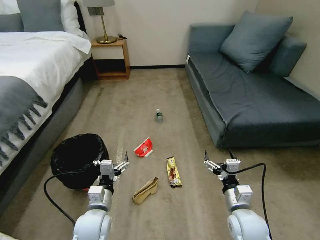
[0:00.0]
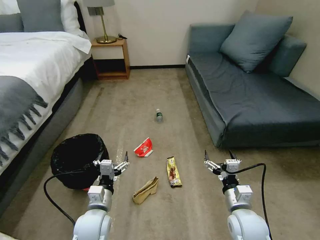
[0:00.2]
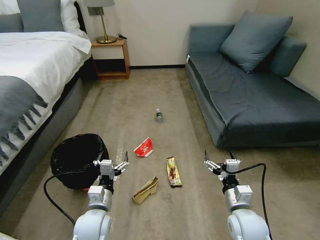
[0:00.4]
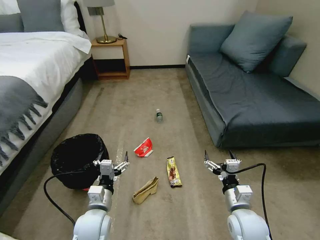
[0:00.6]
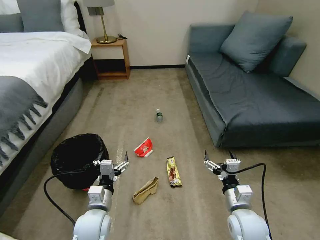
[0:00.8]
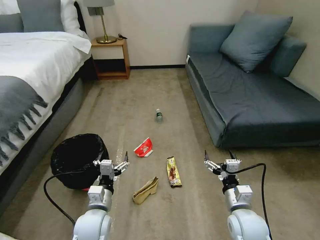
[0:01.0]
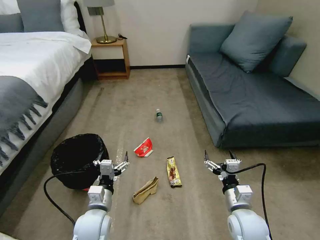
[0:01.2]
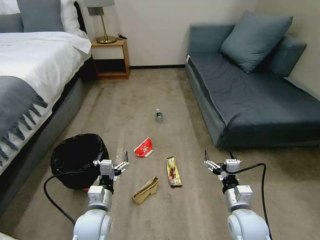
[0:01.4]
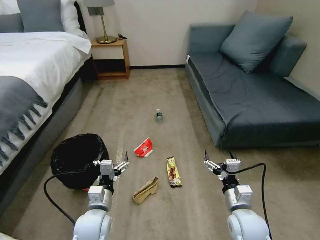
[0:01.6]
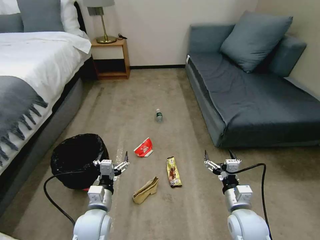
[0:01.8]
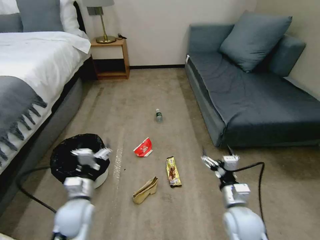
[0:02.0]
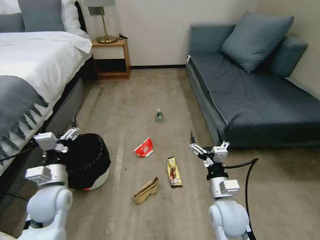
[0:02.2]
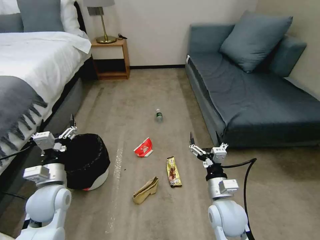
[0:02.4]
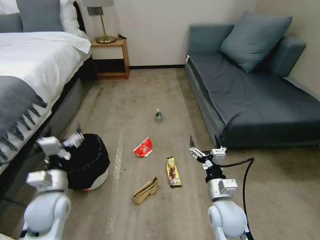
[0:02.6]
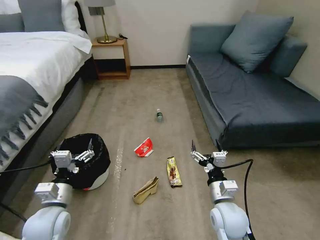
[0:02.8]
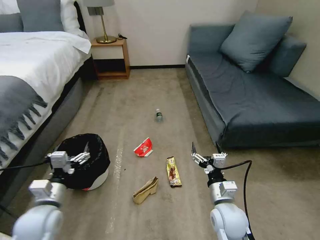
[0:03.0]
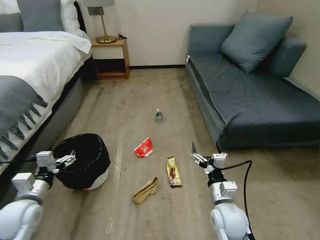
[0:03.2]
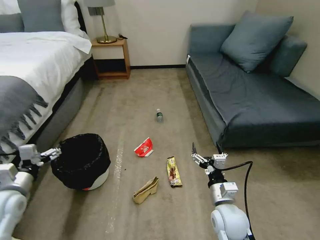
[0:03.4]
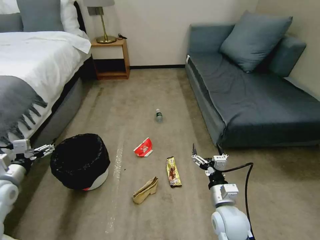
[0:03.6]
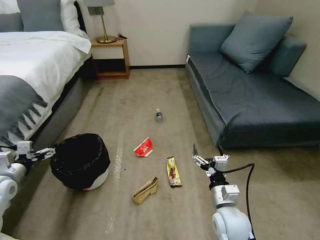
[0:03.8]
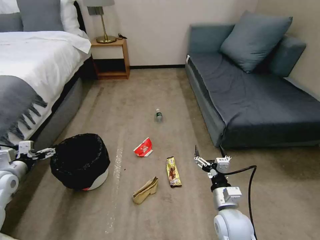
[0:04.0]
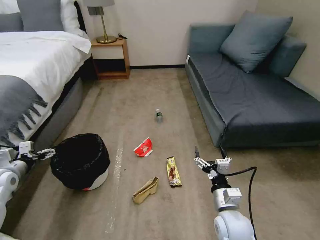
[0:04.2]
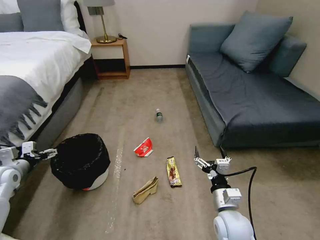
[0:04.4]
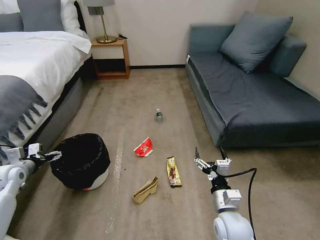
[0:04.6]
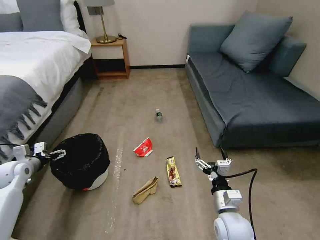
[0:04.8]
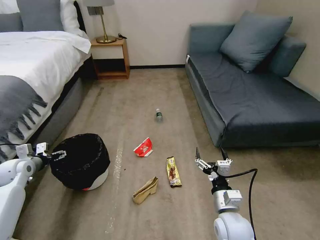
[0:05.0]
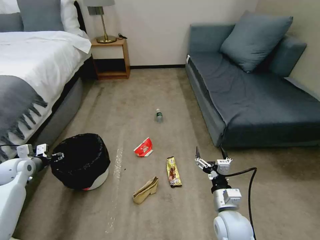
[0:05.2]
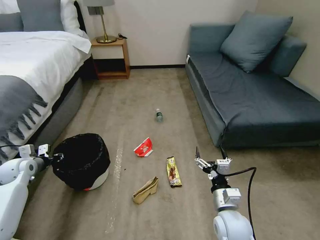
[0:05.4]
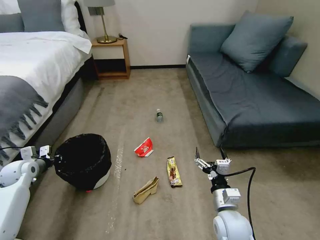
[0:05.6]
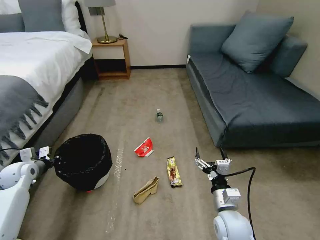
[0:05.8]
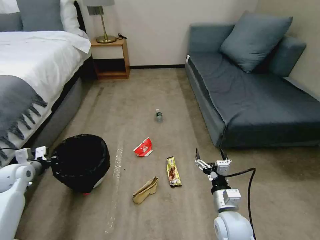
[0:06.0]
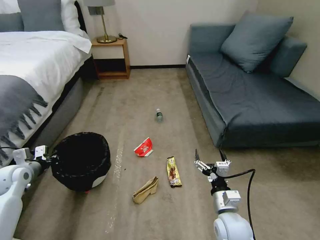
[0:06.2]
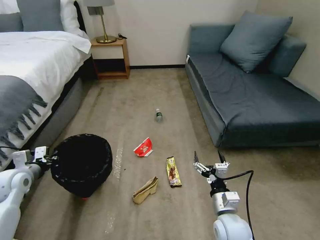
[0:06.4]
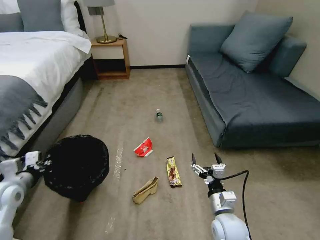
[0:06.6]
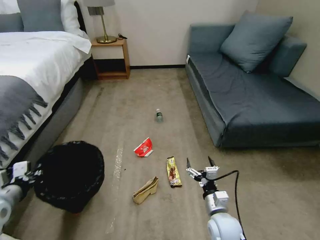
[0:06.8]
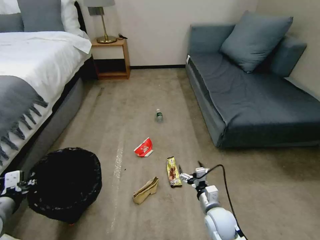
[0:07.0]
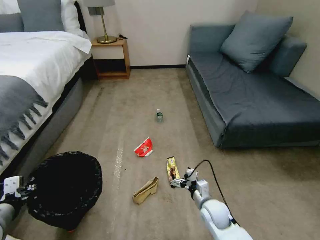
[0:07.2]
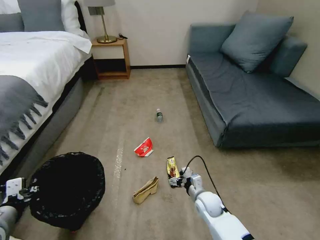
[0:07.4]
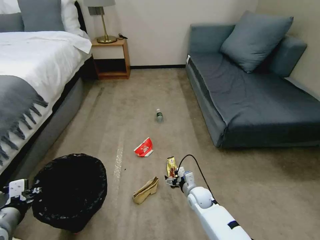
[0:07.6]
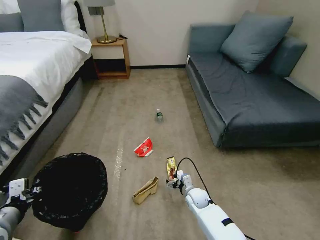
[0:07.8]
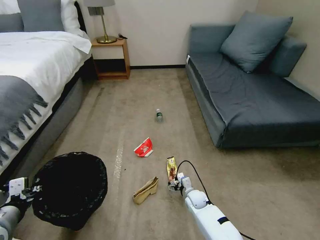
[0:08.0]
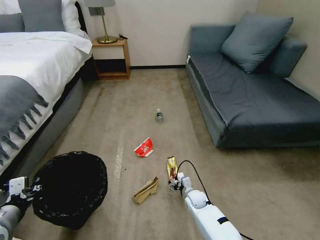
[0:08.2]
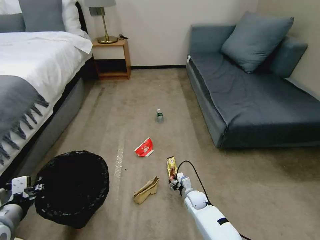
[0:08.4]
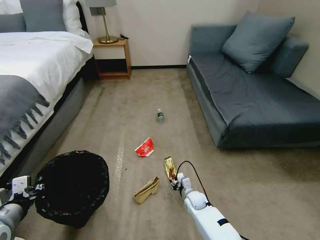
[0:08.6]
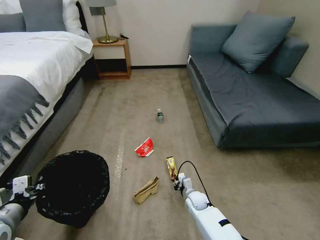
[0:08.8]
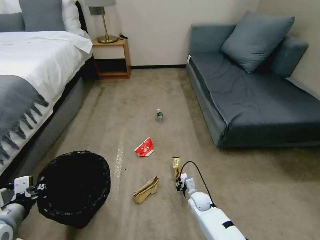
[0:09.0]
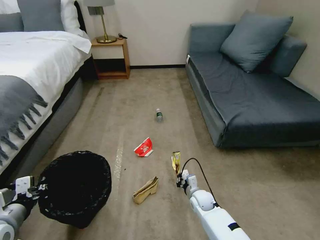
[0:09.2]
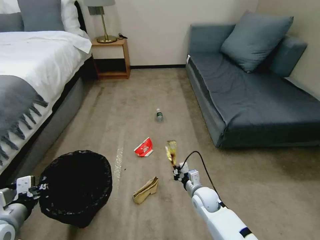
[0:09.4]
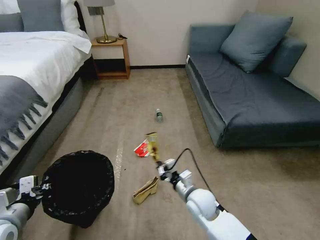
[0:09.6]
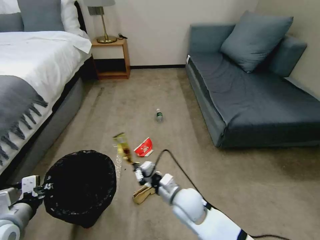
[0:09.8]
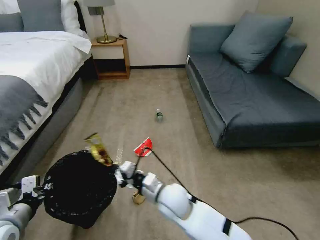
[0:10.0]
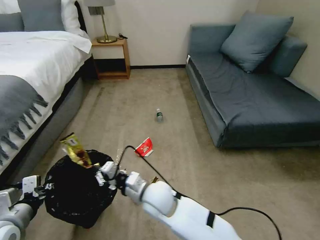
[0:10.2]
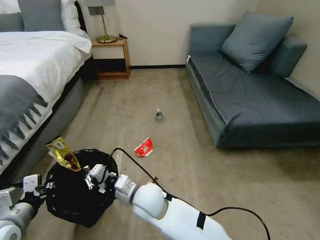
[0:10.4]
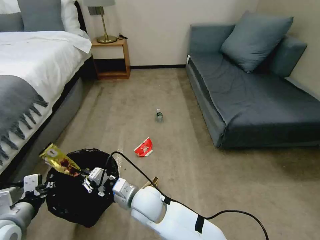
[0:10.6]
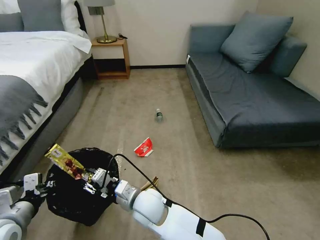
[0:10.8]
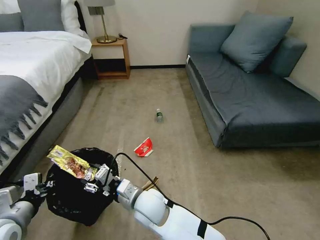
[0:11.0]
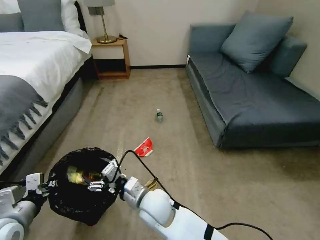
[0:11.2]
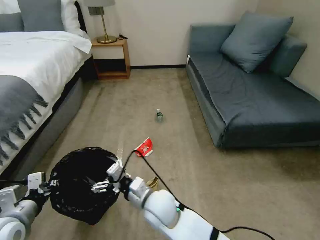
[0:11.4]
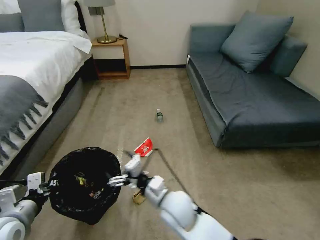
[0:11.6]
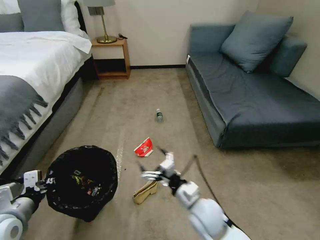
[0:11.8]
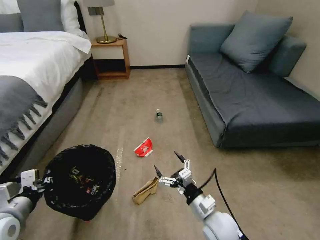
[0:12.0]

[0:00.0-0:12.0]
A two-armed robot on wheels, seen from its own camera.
Task of the whole recording: Pick up the trash bin, then pick up the garbage on the floor and place it into the trash bin.
0:01.6 to 0:03.0: The right gripper shifts by roughly 5 cm, while the left gripper moves to the left and upward, some 10 cm.
0:03.0 to 0:04.4: The left gripper heads to the left and forward, covering some 25 cm.
0:04.4 to 0:06.0: The left gripper closes up.
0:06.0 to 0:07.6: The right gripper shifts roughly 20 cm downward and forward; the left gripper goes some 20 cm backward and to the right.
0:07.6 to 0:09.0: The right gripper shifts roughly 5 cm downward, and closes.
0:09.0 to 0:10.4: The right gripper shifts roughly 30 cm upward and to the left.
0:10.4 to 0:12.0: The right gripper goes some 20 cm to the right, and opens its fingers.

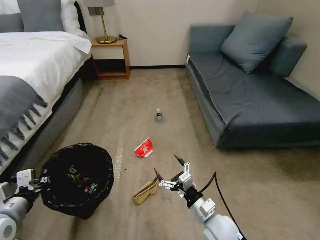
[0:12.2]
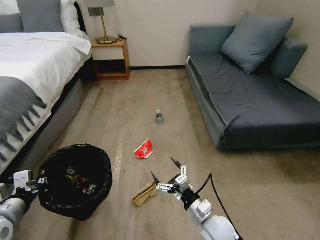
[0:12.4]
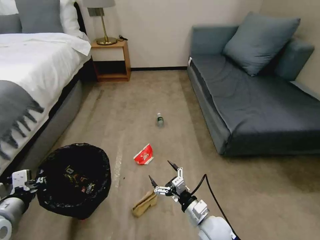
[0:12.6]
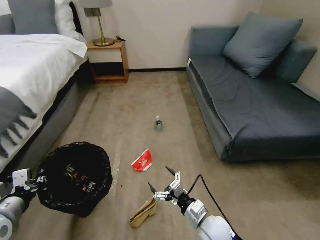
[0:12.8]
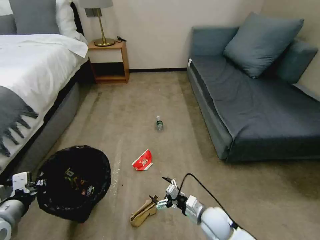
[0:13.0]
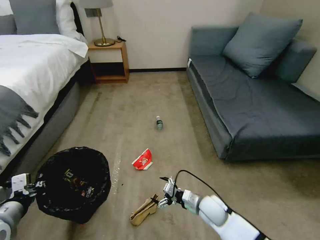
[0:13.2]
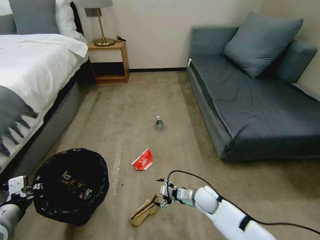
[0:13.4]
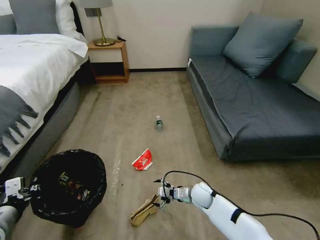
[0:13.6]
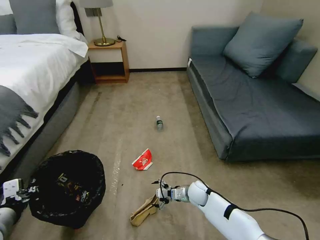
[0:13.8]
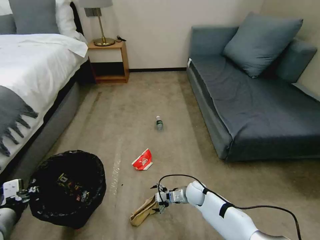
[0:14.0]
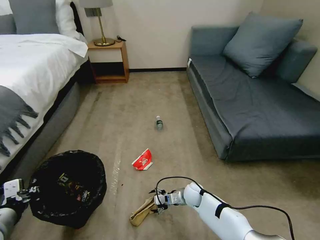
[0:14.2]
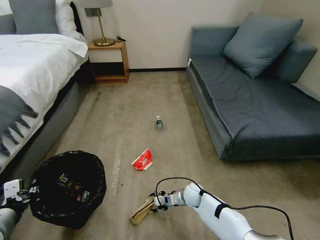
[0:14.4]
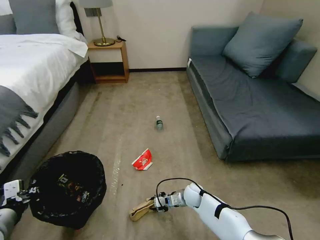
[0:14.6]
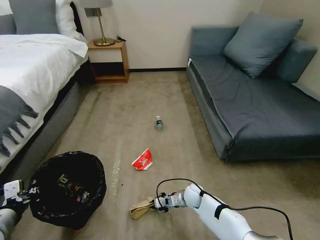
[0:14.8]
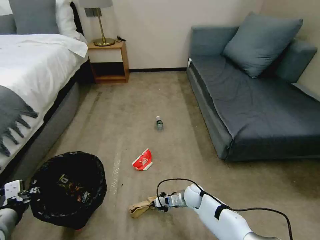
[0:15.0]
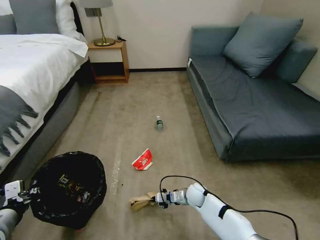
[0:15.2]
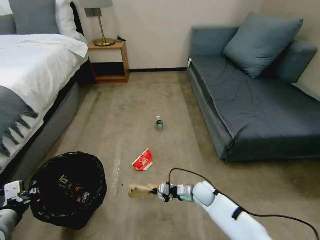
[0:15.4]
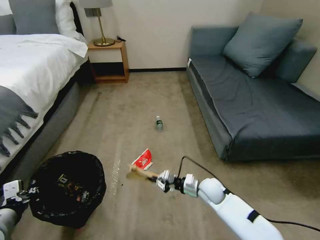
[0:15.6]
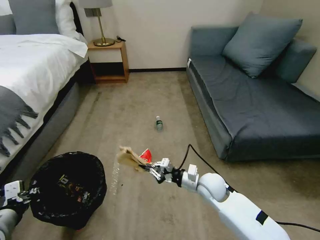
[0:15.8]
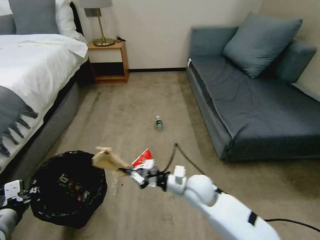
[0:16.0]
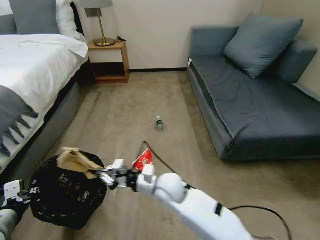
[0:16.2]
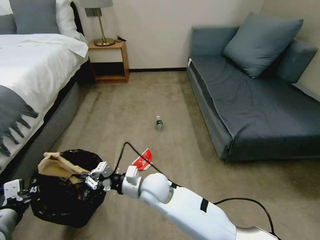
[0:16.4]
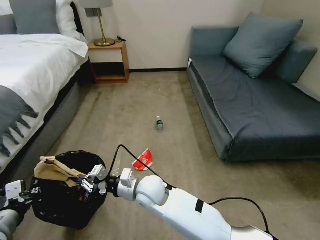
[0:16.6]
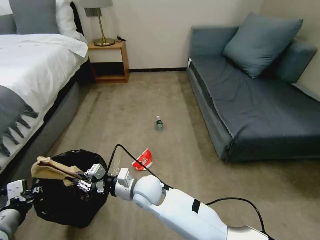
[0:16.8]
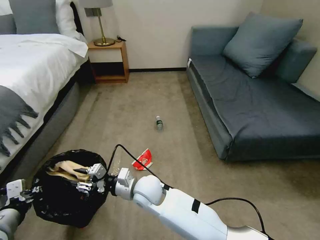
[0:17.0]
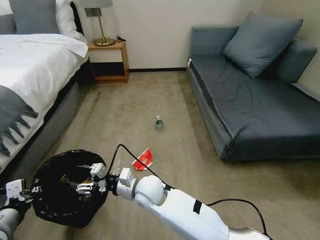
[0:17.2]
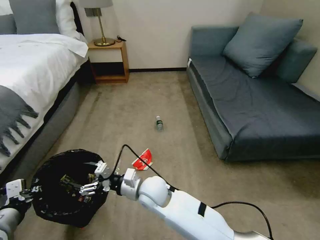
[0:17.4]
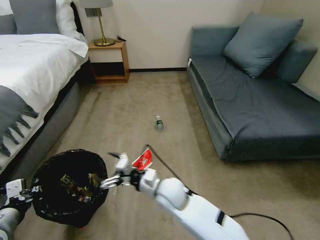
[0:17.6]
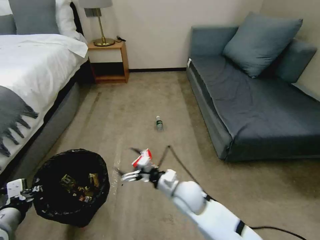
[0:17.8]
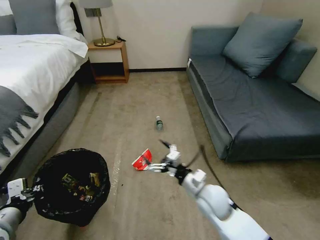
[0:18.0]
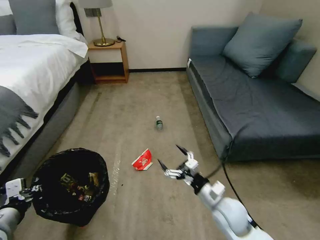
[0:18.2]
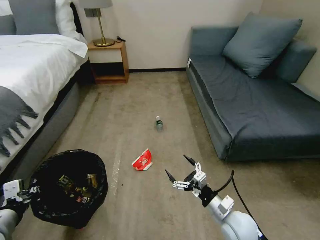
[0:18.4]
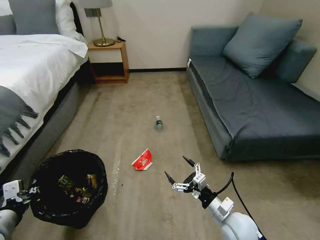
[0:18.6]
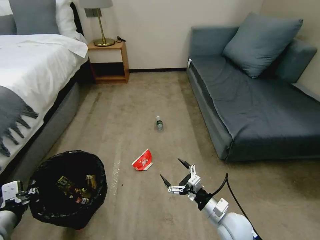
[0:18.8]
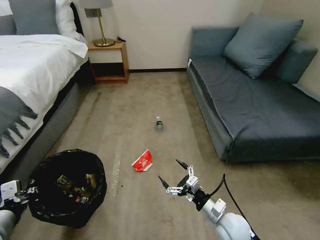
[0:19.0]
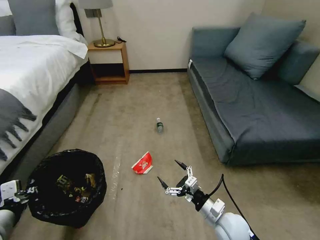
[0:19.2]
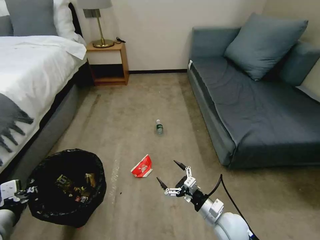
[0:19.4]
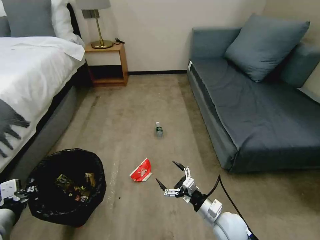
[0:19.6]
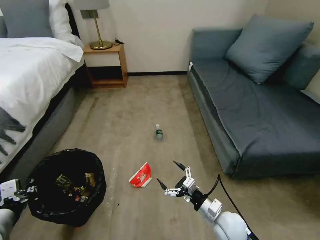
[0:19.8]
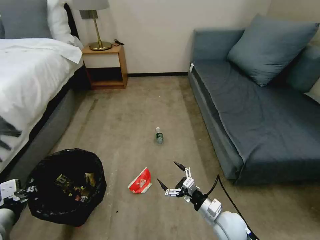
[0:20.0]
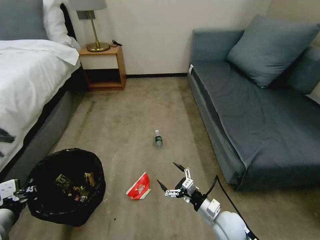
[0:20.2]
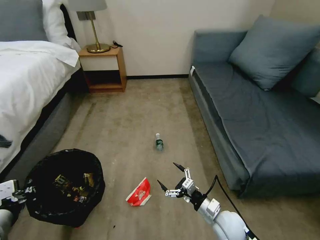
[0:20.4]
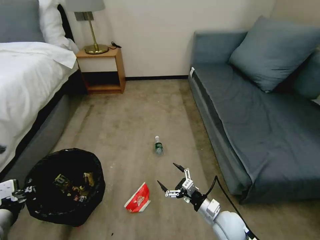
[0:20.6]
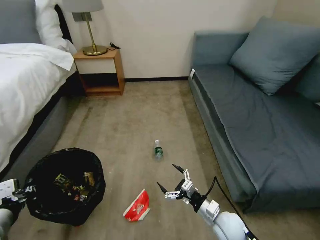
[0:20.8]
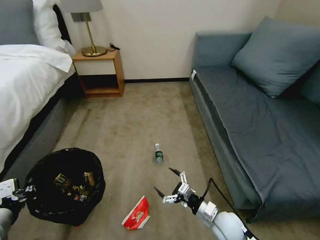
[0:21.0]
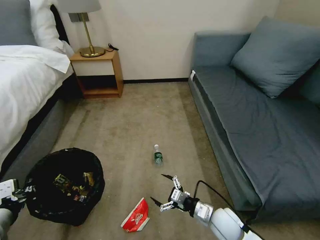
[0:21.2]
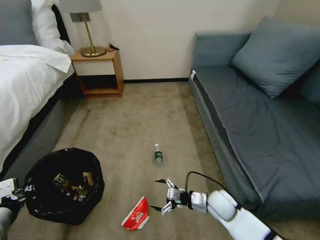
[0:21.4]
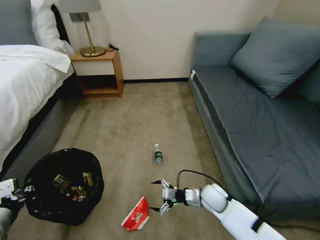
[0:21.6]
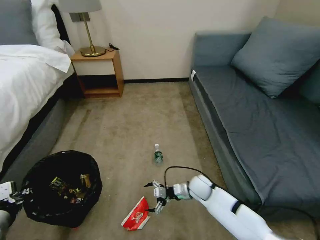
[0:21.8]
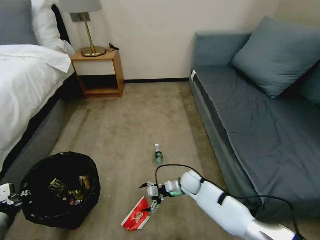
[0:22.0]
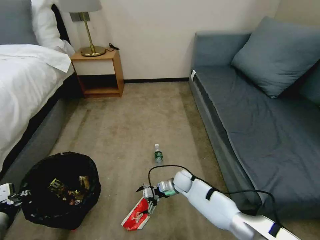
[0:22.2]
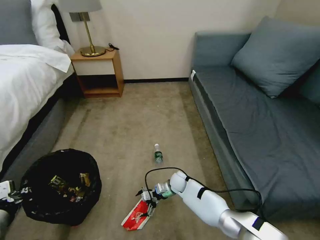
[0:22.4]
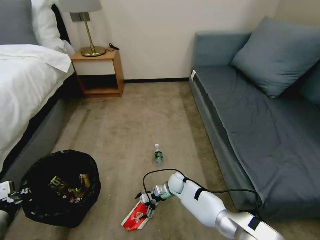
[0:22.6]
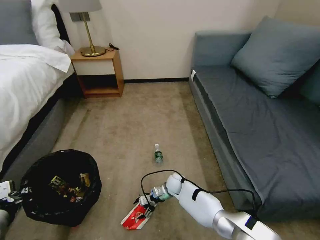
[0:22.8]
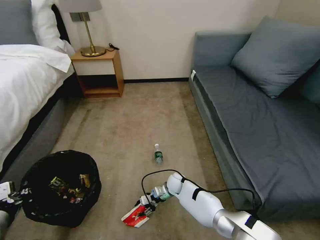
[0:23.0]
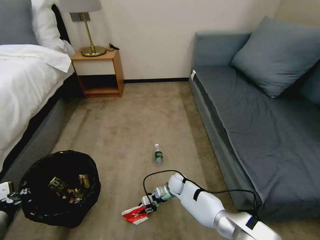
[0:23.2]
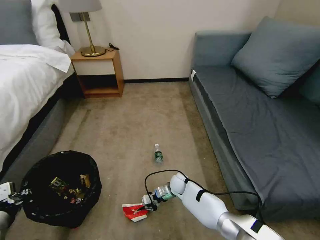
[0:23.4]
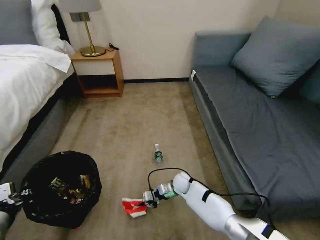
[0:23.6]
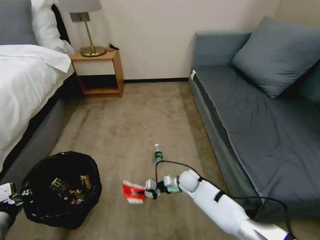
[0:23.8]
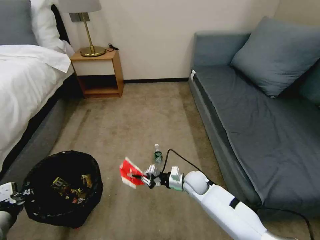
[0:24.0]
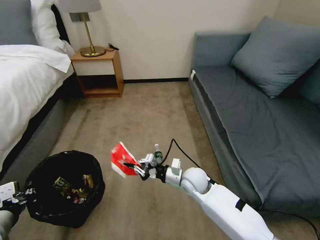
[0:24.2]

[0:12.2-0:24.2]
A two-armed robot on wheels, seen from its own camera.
Task of the whole recording: Pick up the trash bin, then pick up the garbage on the floor and place it into the trash bin.
0:12.2 to 0:13.8: The right gripper goes roughly 20 cm forward and downward.
0:13.8 to 0:15.2: The right gripper closes up.
0:15.2 to 0:16.6: The right gripper heads upward and to the left, covering some 30 cm.
0:16.6 to 0:18.2: The right gripper travels to the right by approximately 25 cm, and opens up.
0:18.2 to 0:19.8: The right gripper heads downward, covering about 5 cm.
0:21.2 to 0:22.6: The right gripper is displaced forward, to the left and downward by some 25 cm.
0:22.6 to 0:24.2: The right gripper moves upward, some 15 cm, and closes up.
